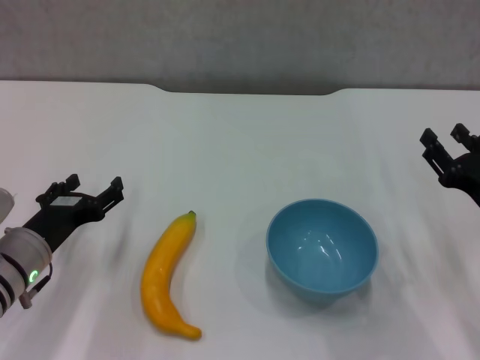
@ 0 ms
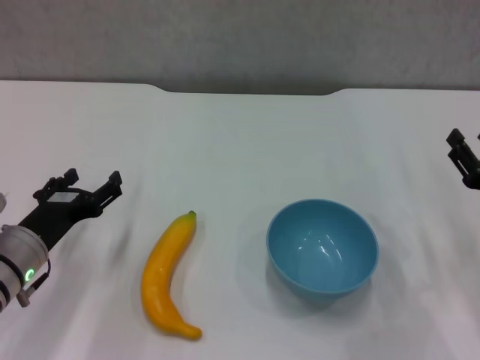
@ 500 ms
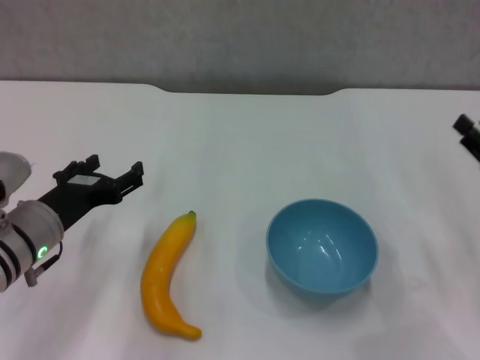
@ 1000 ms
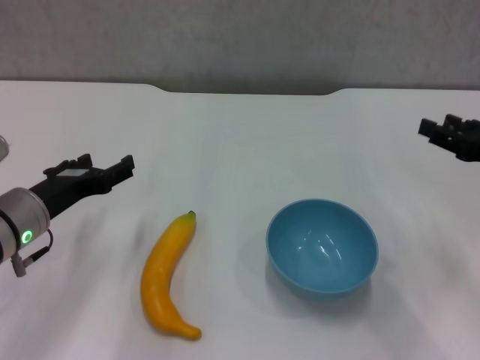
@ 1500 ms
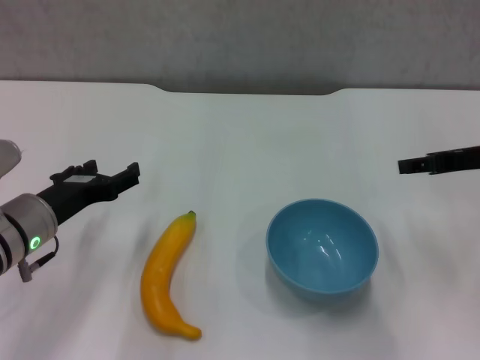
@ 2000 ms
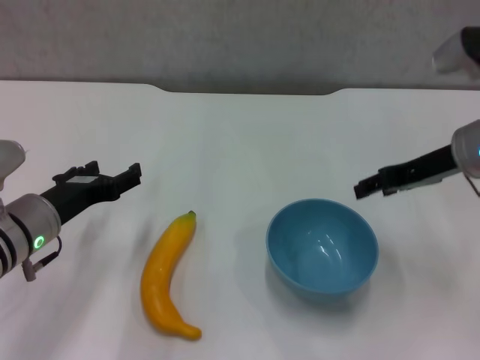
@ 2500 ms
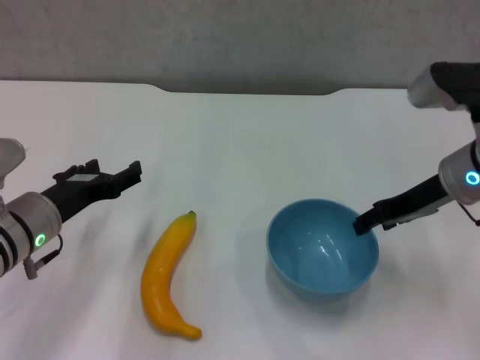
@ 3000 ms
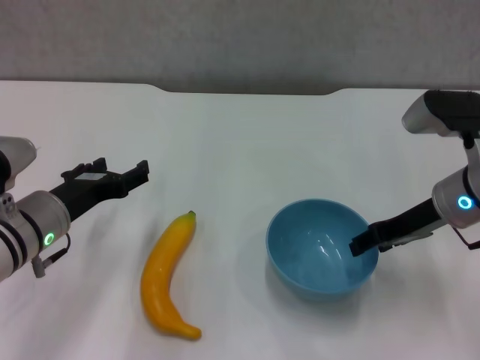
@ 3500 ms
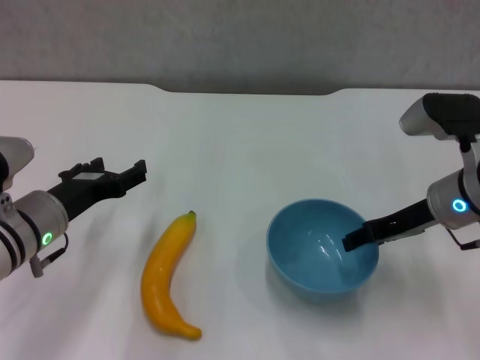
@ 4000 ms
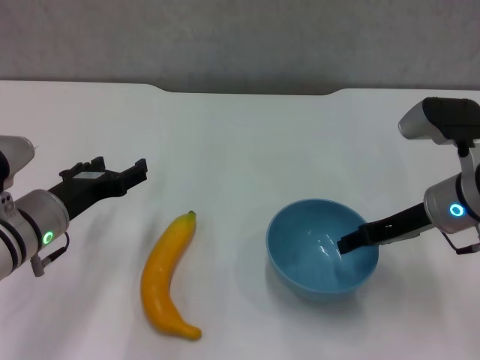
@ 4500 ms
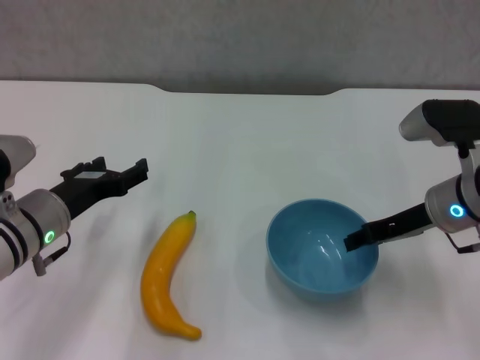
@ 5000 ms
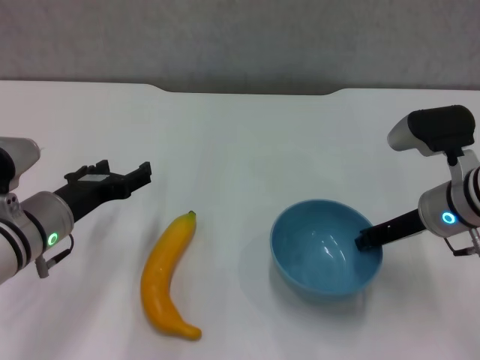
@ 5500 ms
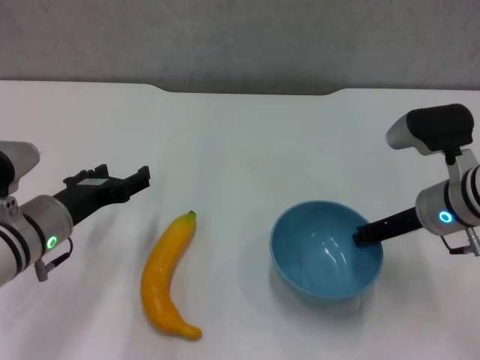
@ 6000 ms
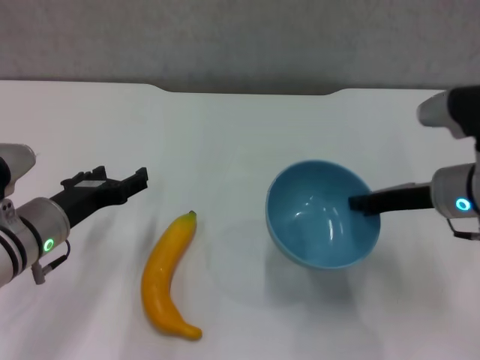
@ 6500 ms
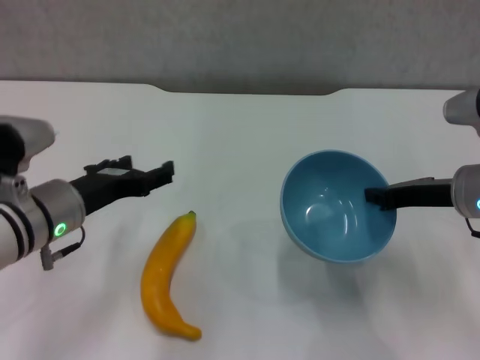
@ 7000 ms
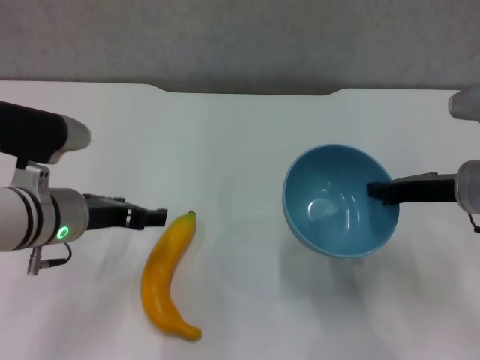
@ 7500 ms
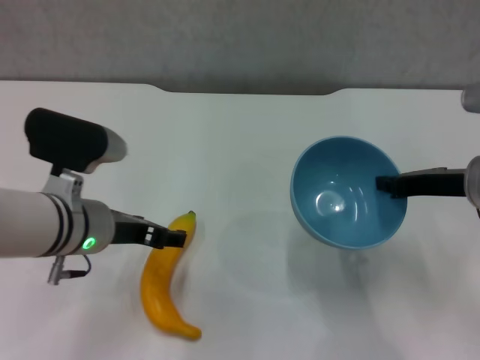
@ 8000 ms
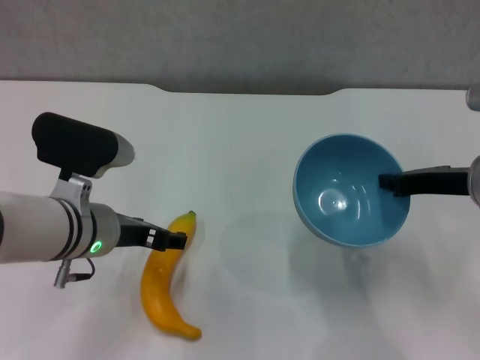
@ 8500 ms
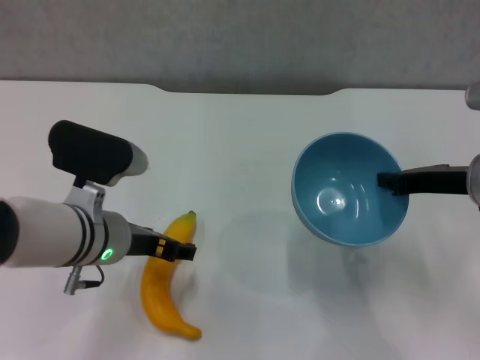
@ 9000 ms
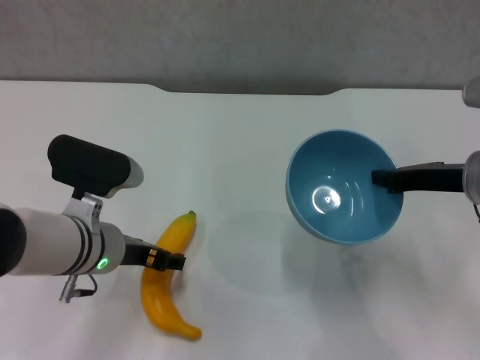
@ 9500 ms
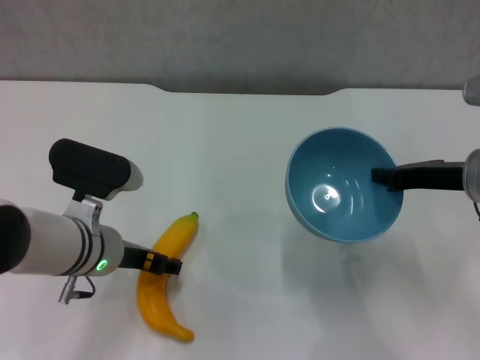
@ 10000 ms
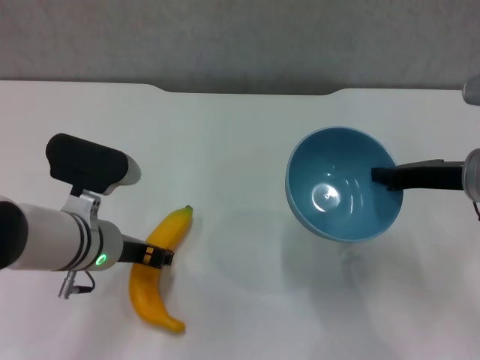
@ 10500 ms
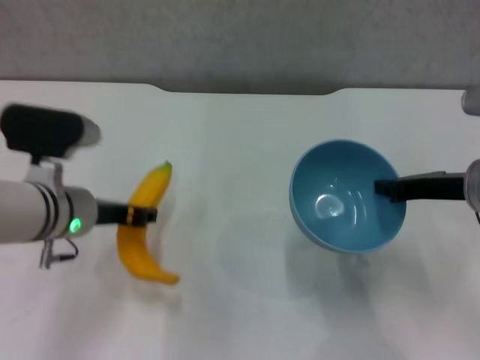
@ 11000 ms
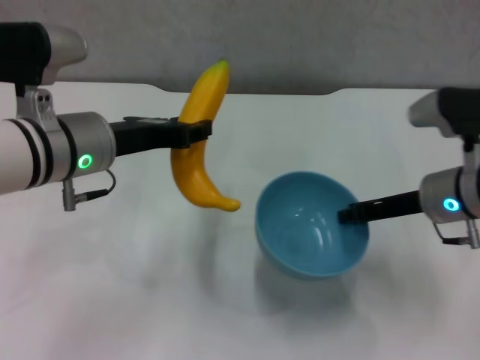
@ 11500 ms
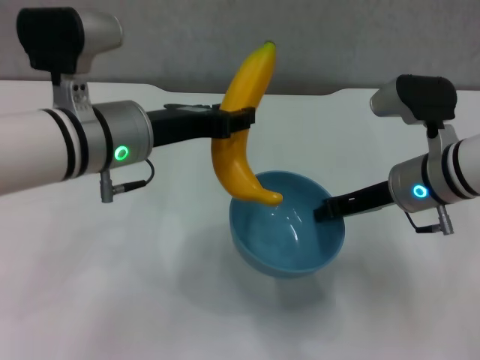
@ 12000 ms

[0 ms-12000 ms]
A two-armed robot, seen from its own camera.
Step, 0 ms to 5500 ms: Grasp the blue bowl with right gripper.
Step, 6000 ms to 6500 ms: Lift the blue bowl with right gripper.
Step, 7000 ms to 10000 ms: Grasp the banana with left gripper.
0 ms to 2000 ms: The right gripper shifts some 15 cm upward and forward.
2000 ms to 4000 ms: The right gripper shifts roughly 10 cm to the left and downward.
4000 ms to 6000 ms: The right gripper closes its fingers.
6000 ms to 8000 ms: The right gripper ends up roughly 5 cm from where it was, while the left gripper shifts about 5 cm to the right.
8000 ms to 10000 ms: The grippers make only small movements.
10000 ms to 12000 ms: The right gripper heads to the left, covering about 5 cm; the left gripper shifts approximately 10 cm upward, and closes up.

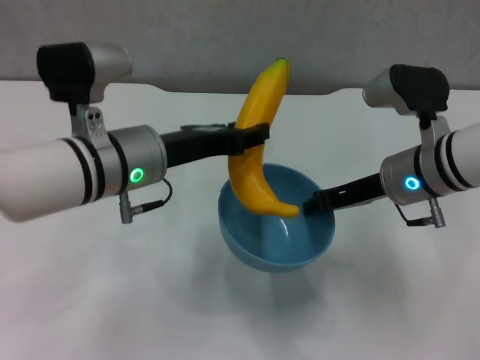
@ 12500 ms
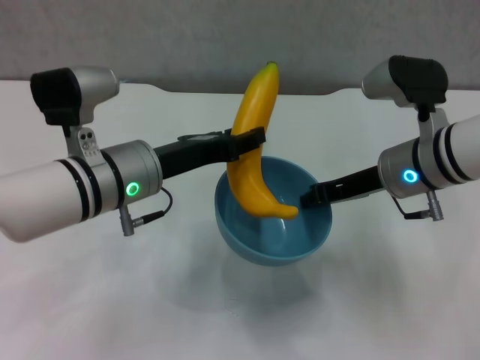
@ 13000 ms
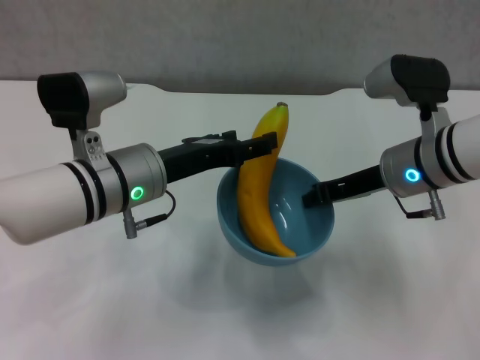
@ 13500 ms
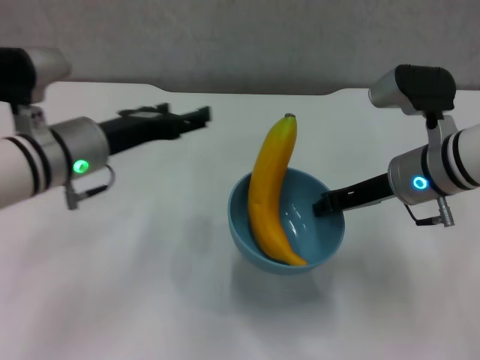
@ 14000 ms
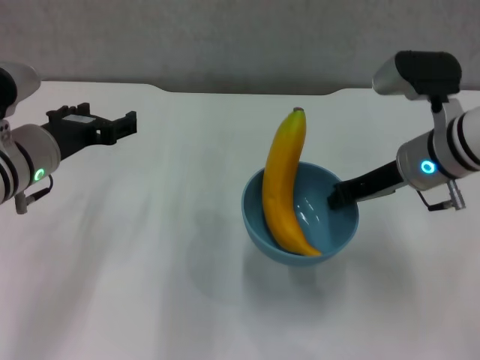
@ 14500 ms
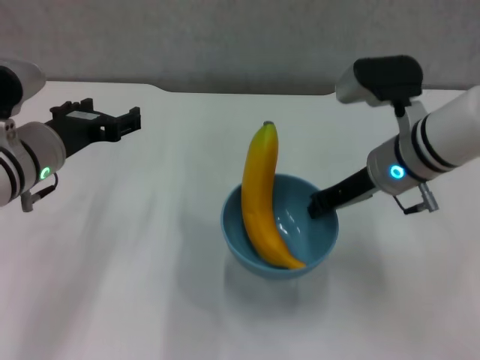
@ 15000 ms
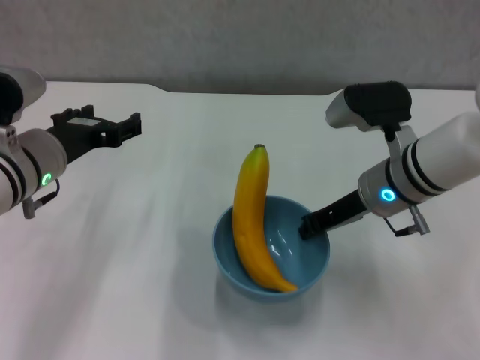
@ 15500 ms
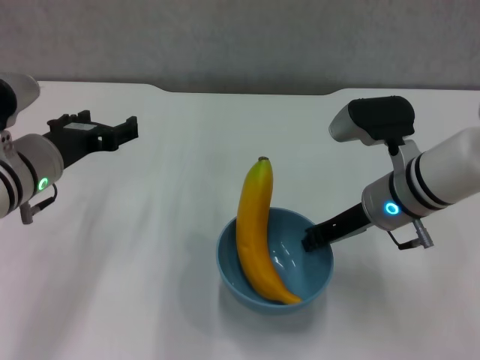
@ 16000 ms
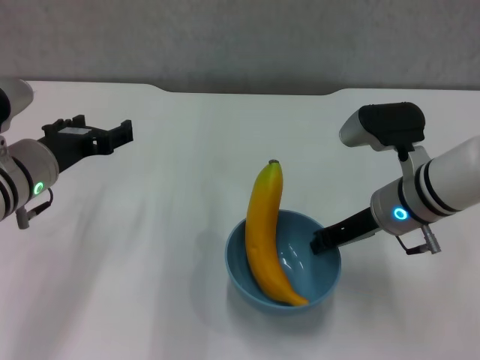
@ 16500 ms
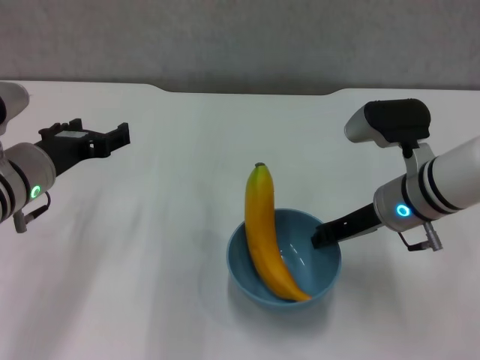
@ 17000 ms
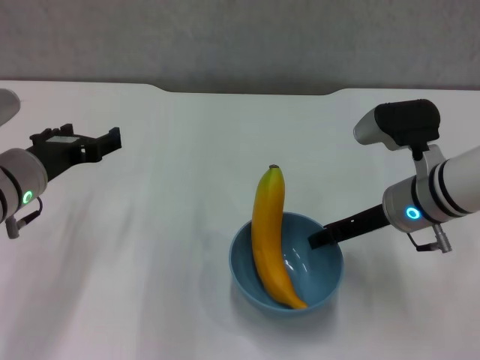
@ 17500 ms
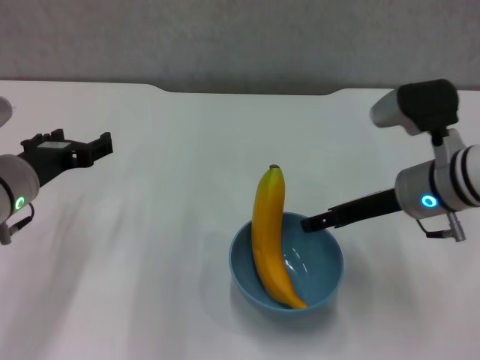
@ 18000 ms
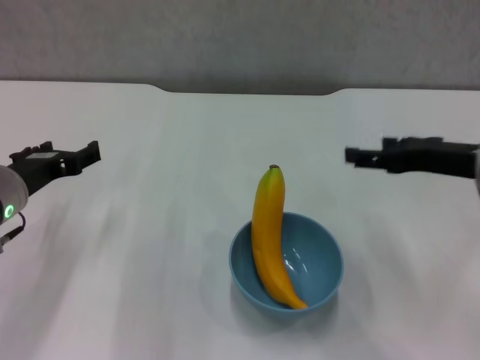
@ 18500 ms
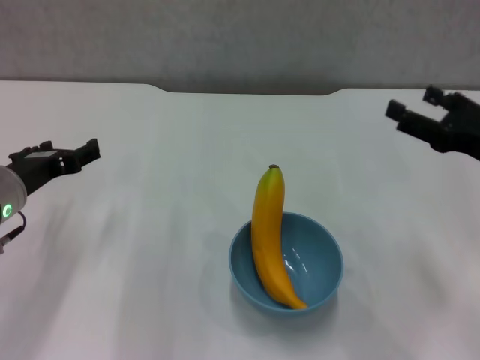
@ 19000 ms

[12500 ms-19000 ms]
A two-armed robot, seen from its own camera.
Step, 14000 ms to 17500 ms: Place the bowl on the table with right gripper.
12500 ms to 14500 ms: The left gripper goes some 10 cm to the left, and opens.
17000 ms to 19000 ms: The right gripper is displaced to the right and backward by approximately 15 cm, and opens.

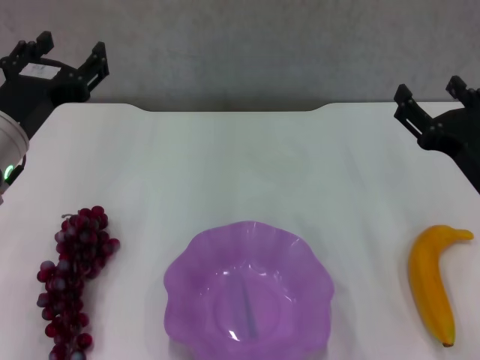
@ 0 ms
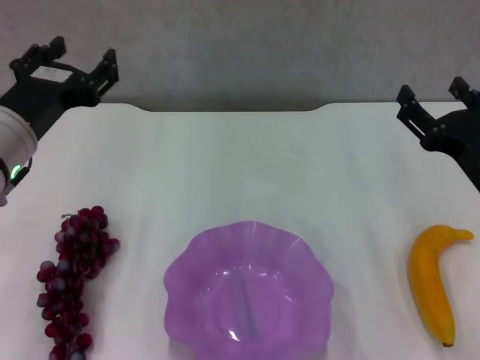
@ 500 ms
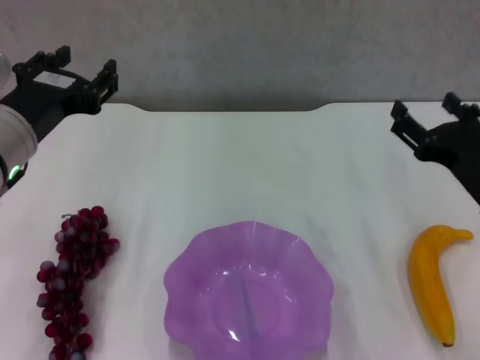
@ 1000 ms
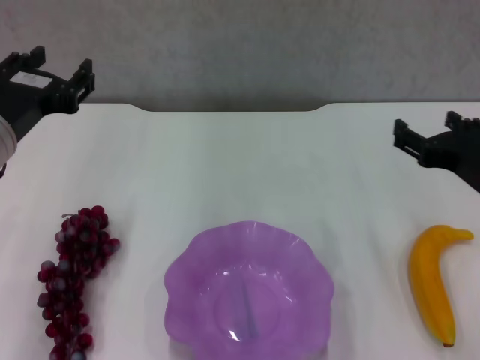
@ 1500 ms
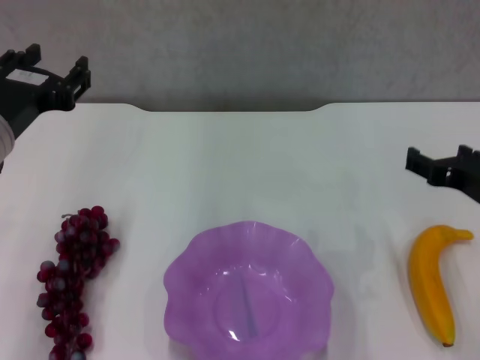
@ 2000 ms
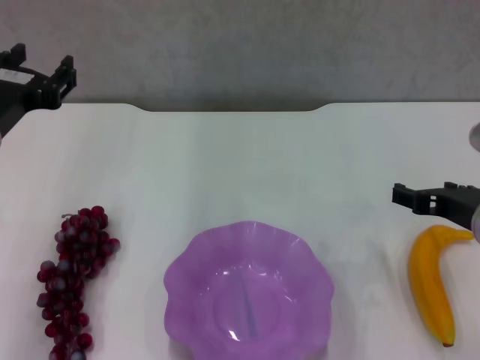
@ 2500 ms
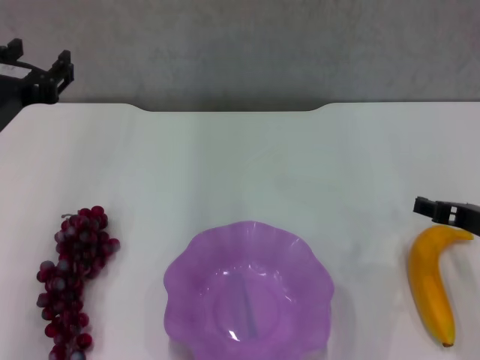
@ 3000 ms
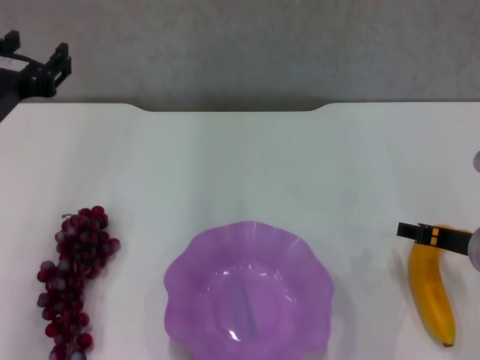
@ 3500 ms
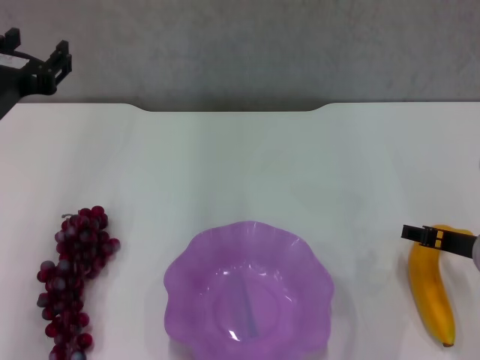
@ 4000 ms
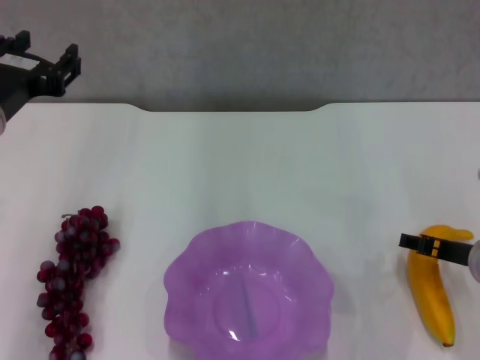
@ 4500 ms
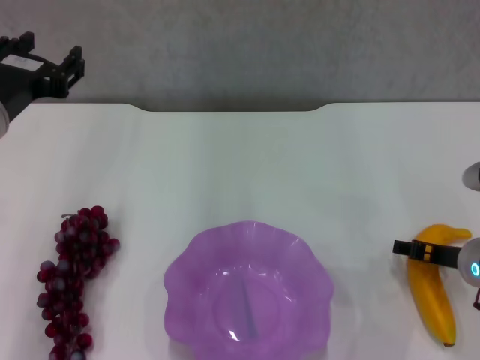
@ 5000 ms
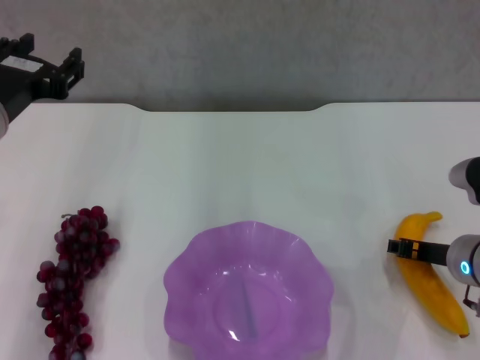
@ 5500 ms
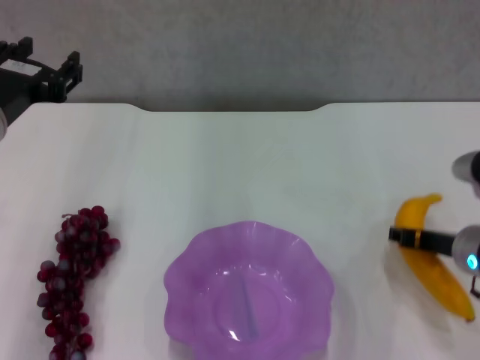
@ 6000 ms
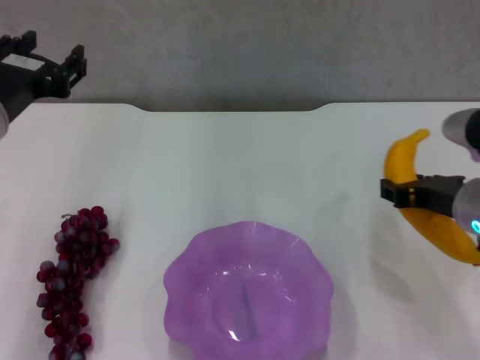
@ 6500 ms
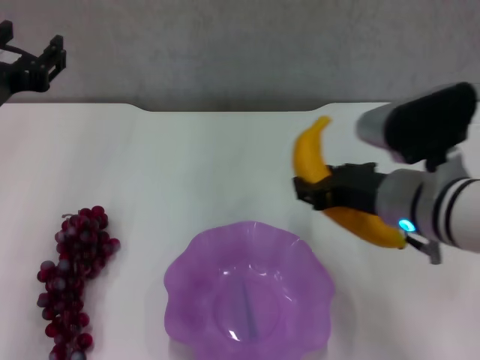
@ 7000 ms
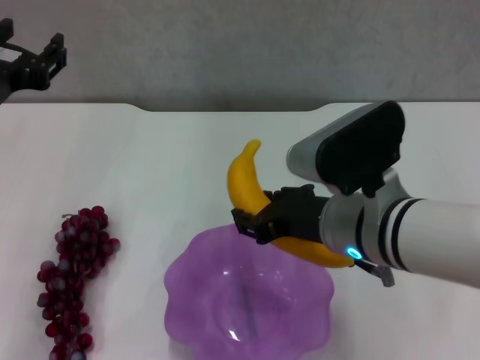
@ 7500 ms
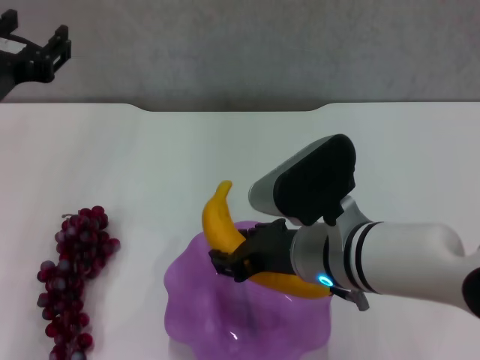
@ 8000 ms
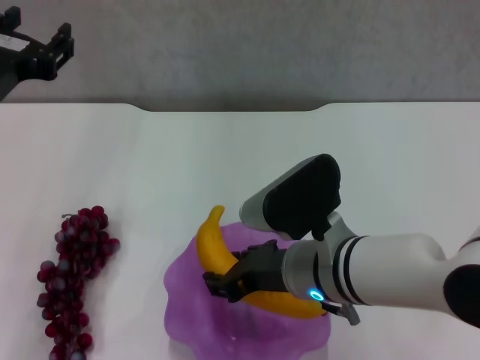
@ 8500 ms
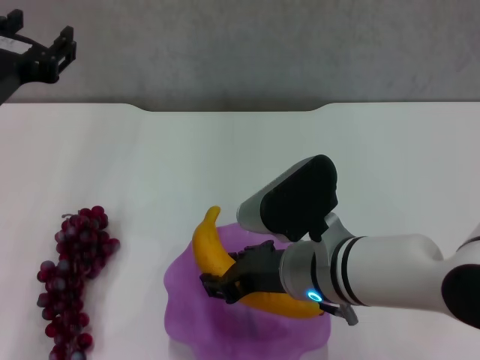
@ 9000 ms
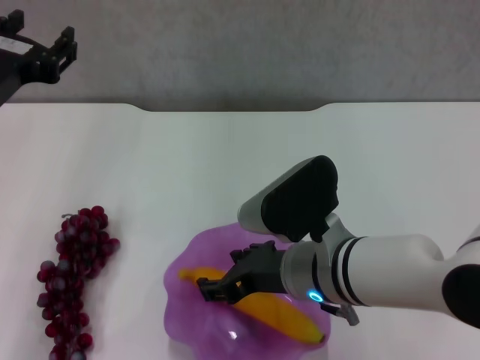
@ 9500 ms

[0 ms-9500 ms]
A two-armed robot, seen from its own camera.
Step, 0 ms to 5000 ms: Grasp the banana with right gripper.
2000 ms to 4000 ms: The right gripper shifts roughly 5 cm downward.
4000 ms to 5500 ms: The right gripper closes up.
5500 ms to 7500 ms: The right gripper heads to the left and upward, covering approximately 15 cm.
7500 ms to 9500 ms: The right gripper changes place by roughly 5 cm.
